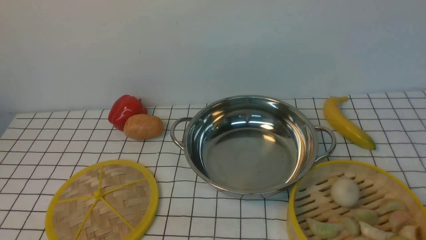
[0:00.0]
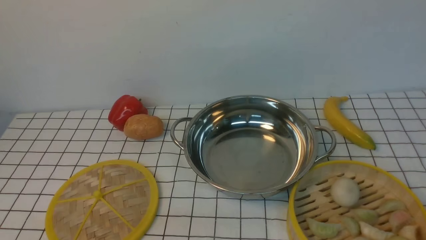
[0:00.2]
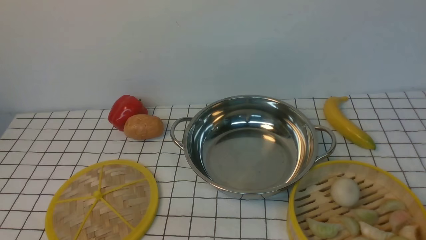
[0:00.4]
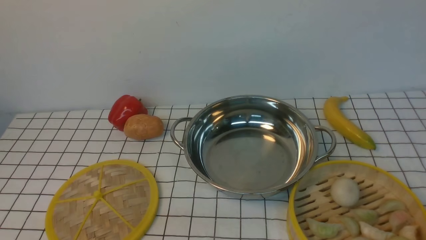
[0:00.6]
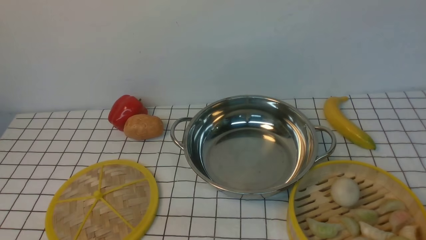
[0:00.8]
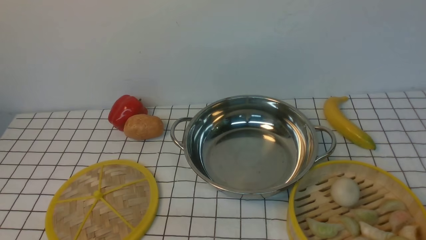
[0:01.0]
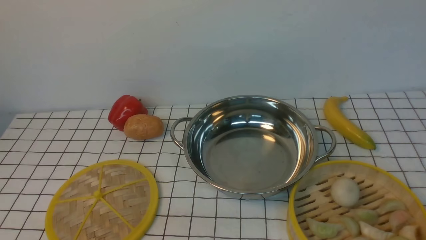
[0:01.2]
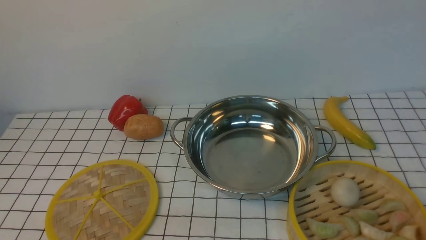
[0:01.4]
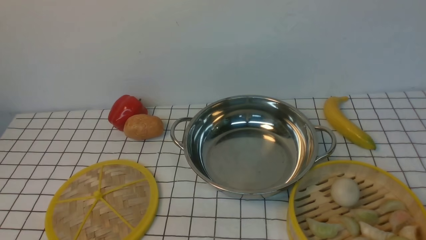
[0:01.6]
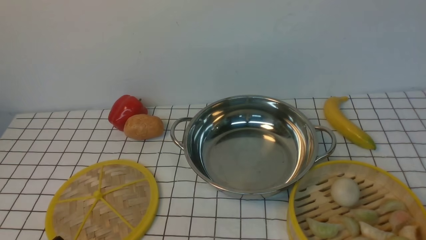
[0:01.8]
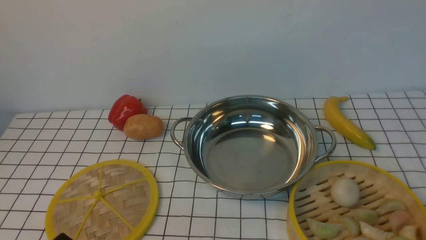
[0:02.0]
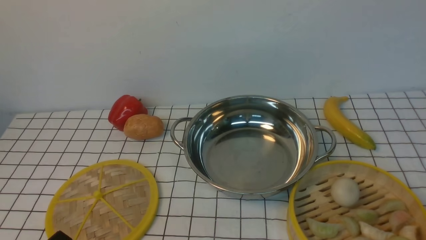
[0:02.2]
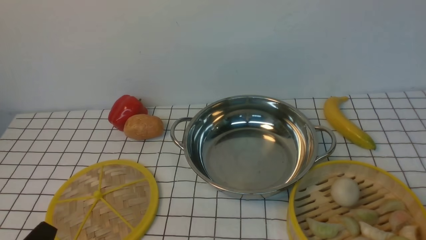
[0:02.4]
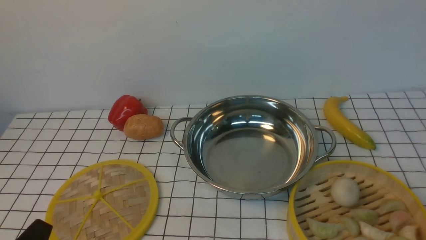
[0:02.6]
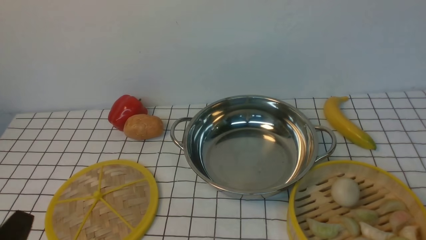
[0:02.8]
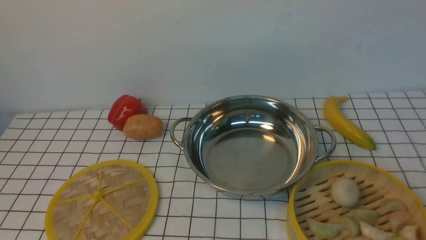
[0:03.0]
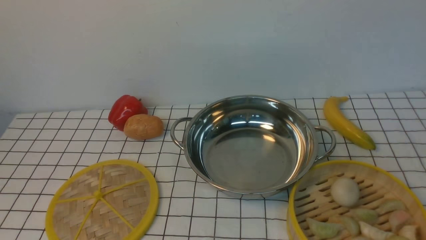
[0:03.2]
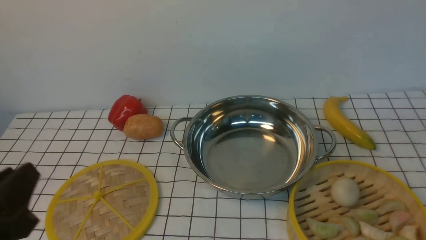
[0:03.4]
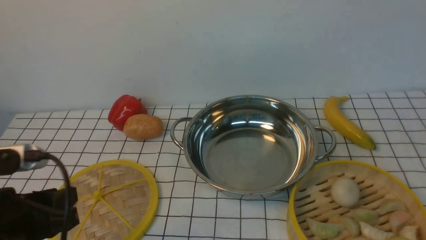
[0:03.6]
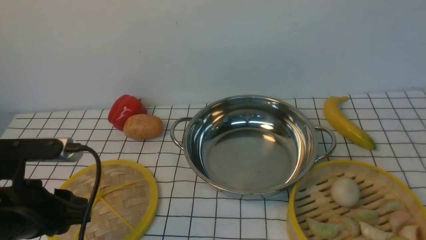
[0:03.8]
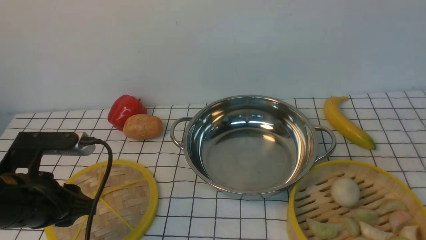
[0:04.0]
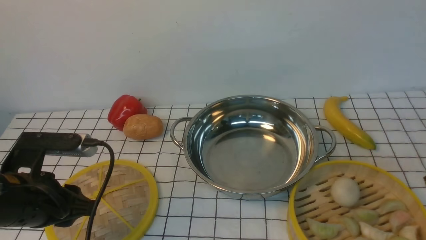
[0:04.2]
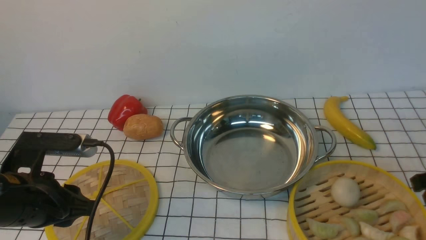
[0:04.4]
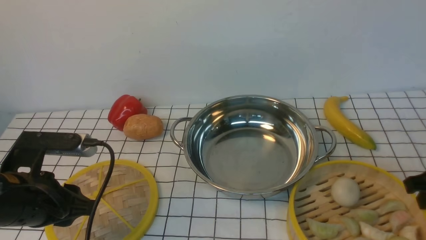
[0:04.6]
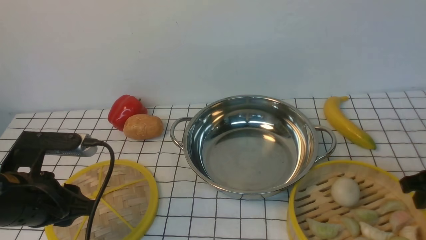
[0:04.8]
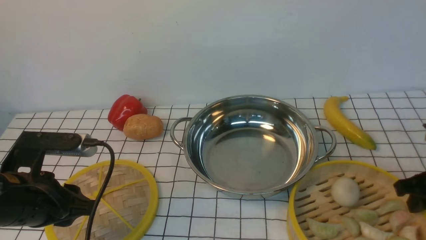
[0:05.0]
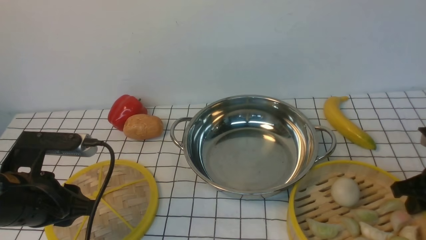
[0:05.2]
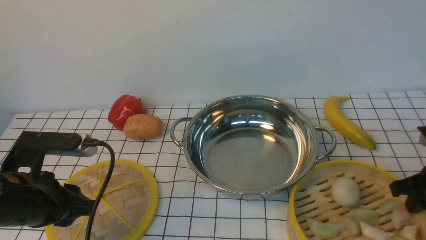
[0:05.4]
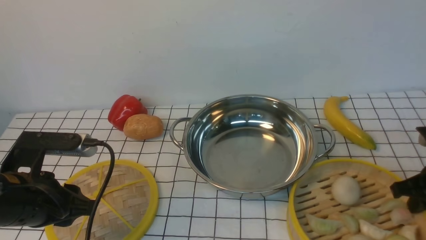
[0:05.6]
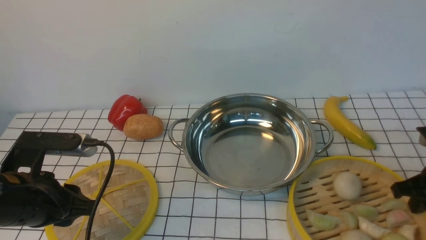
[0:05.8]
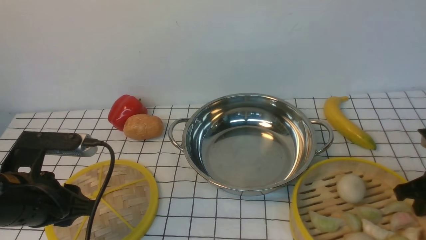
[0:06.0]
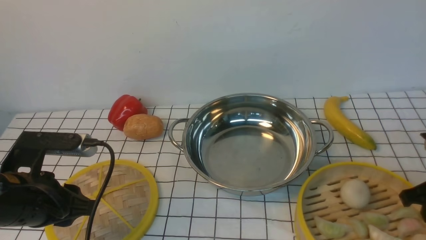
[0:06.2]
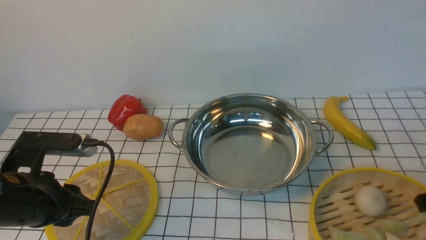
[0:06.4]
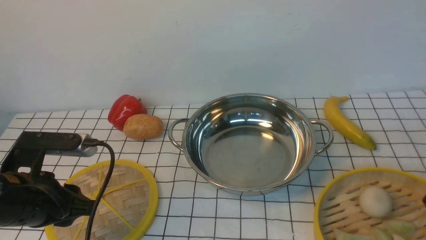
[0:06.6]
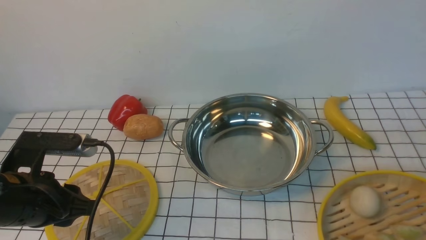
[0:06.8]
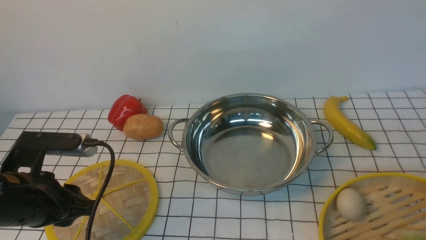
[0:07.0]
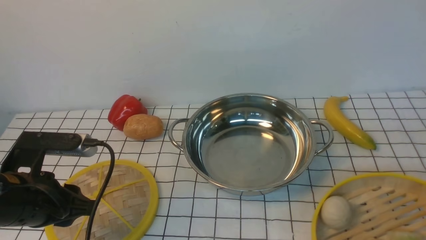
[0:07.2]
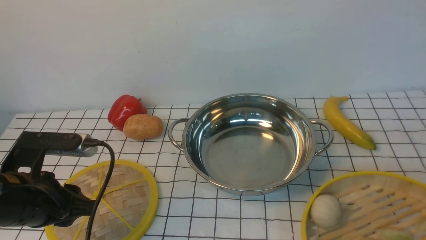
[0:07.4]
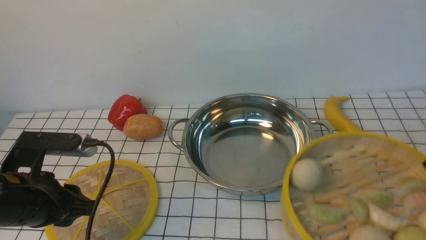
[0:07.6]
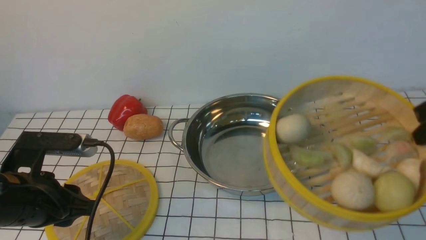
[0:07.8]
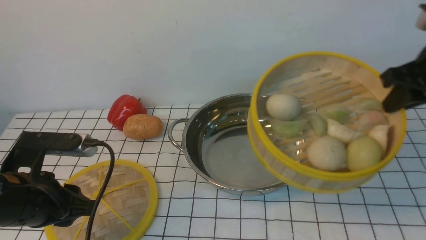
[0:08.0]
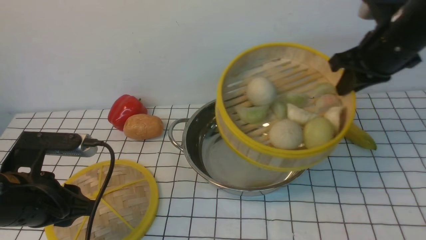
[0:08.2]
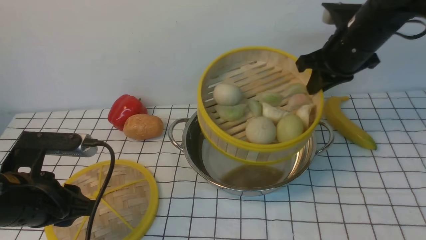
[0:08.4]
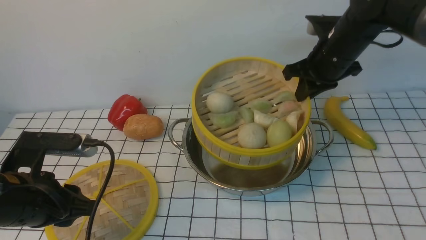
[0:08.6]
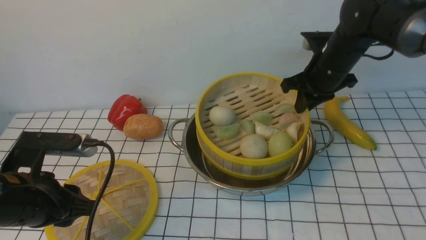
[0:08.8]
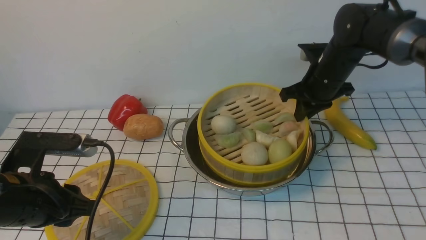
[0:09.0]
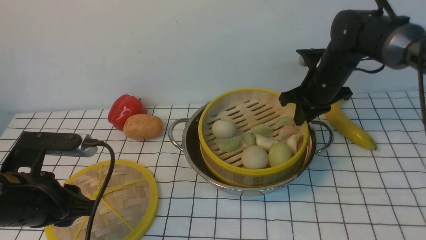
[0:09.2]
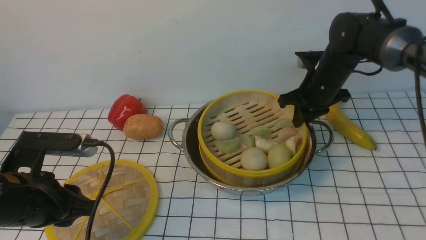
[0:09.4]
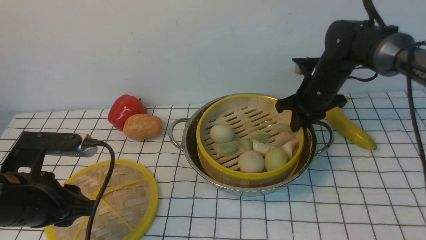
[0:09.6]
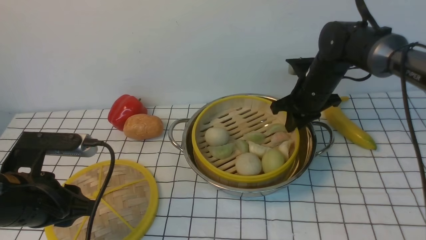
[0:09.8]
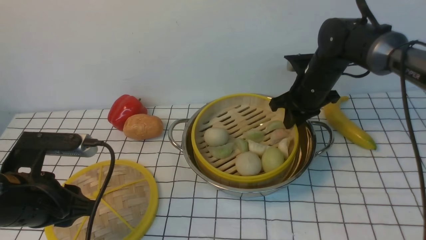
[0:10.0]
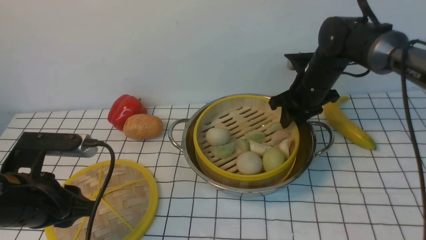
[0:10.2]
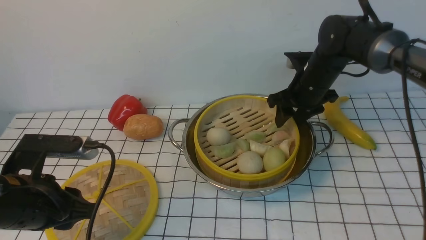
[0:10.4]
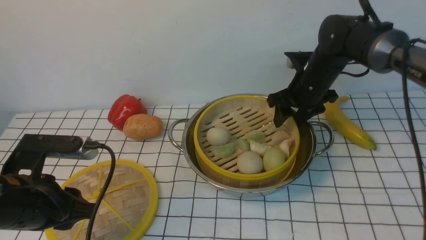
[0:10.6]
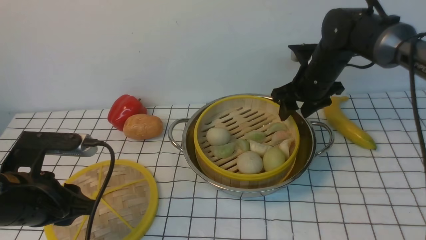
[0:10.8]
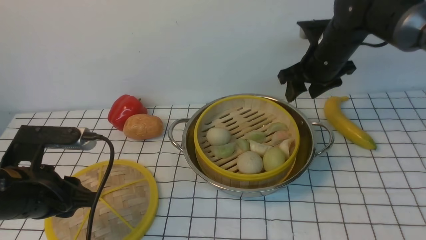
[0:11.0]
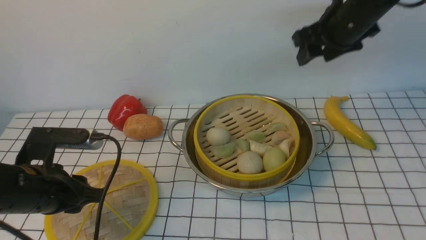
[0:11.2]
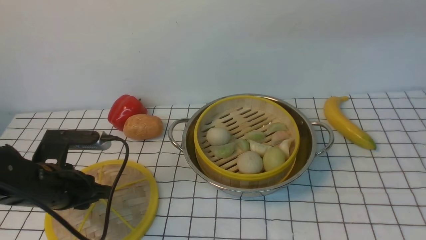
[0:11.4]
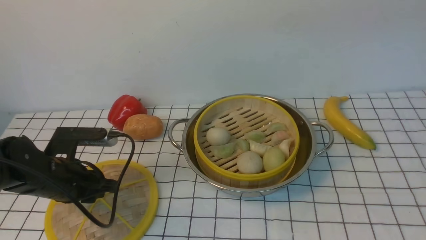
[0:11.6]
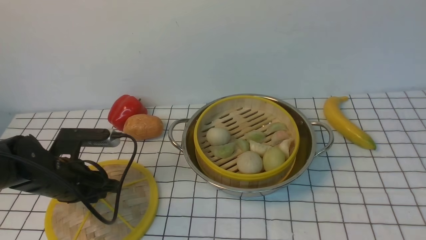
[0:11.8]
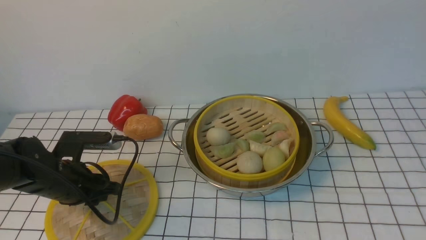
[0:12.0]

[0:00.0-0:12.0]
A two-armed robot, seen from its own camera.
Task of the whole recording: place the steamer in the pot on the white tablecloth, and put the lid on the steamer.
Step, 0:00.0 to 0:07.4: use the right arm to lift the steamer closest to it.
Step, 0:07.6 to 0:10.8: use the right arm to put the steamer into the iron steamer pot in the middle.
0:03.0 to 0:04.4: The left gripper is displaced forward by roughly 15 cm.
0:04.4 to 0:06.0: The right gripper shifts about 5 cm downward, and closes up.
0:06.0 to 0:07.6: The right gripper goes about 10 cm upward.
0:07.6 to 0:09.0: The right gripper shifts roughly 25 cm forward and to the left.
0:09.0 to 0:10.4: The right gripper opens.
0:10.4 to 0:12.0: The left gripper heads forward and downward, covering approximately 10 cm; the right gripper goes roughly 60 cm upward and backward.

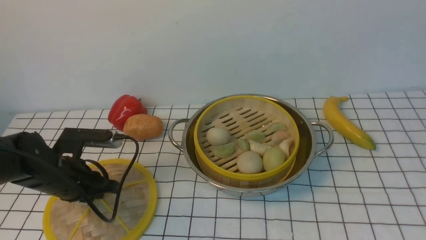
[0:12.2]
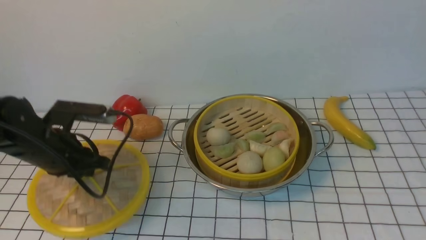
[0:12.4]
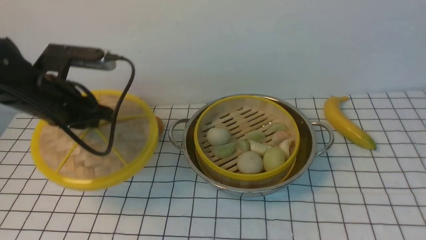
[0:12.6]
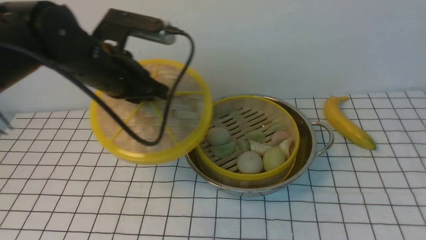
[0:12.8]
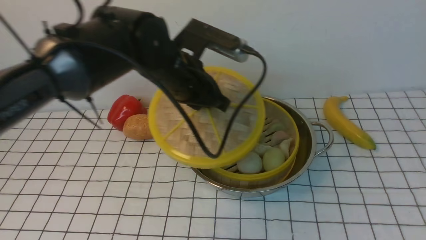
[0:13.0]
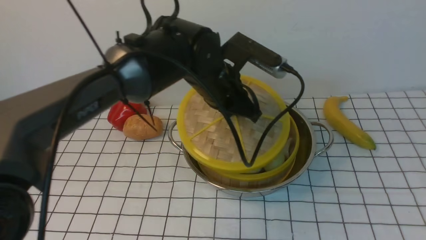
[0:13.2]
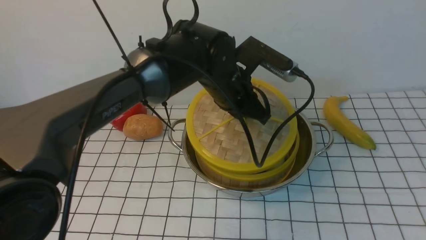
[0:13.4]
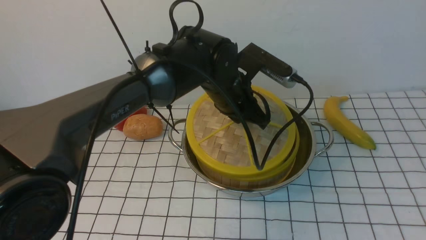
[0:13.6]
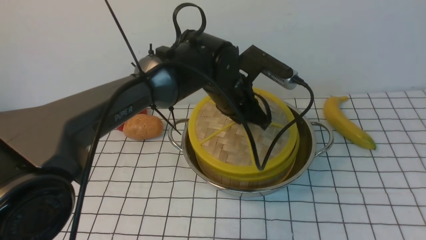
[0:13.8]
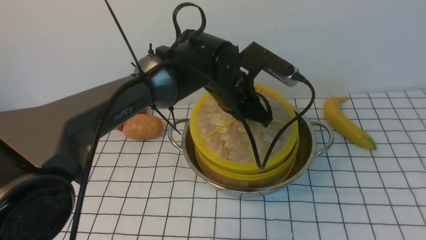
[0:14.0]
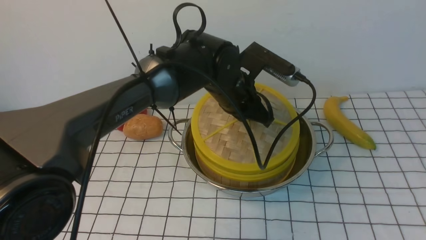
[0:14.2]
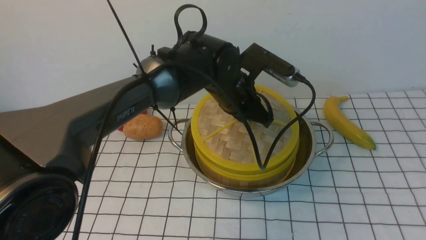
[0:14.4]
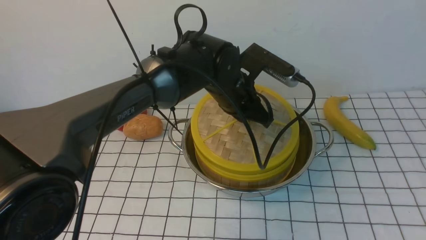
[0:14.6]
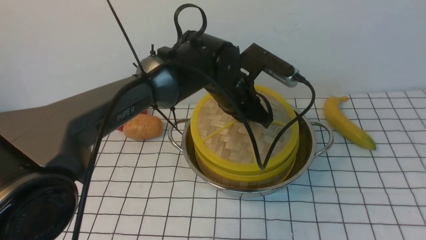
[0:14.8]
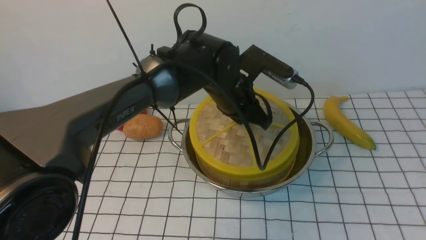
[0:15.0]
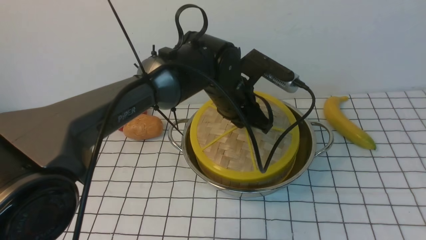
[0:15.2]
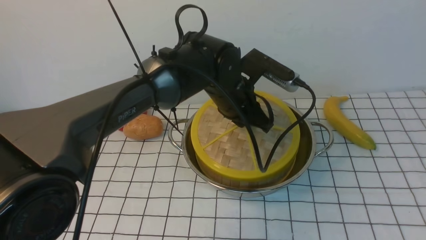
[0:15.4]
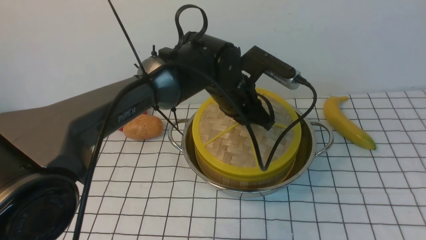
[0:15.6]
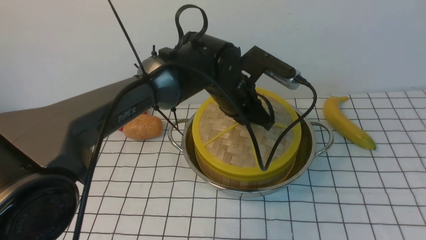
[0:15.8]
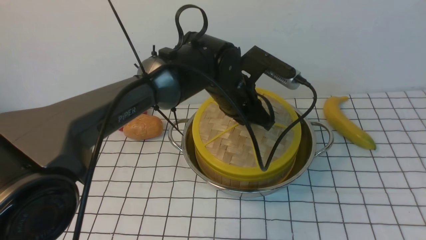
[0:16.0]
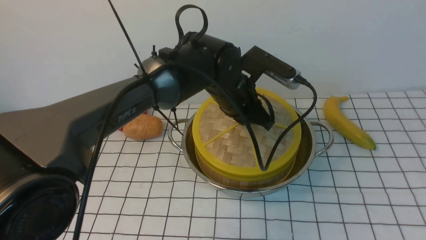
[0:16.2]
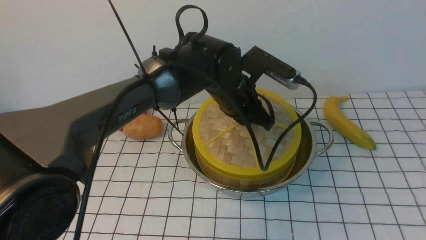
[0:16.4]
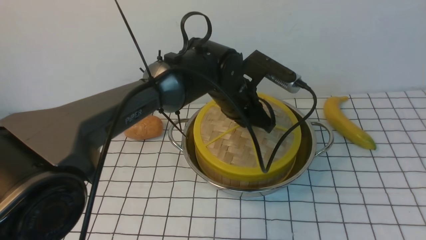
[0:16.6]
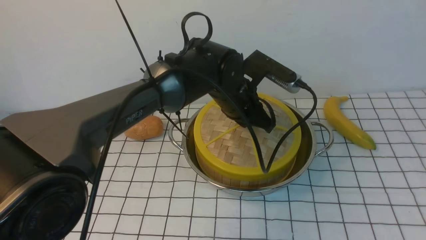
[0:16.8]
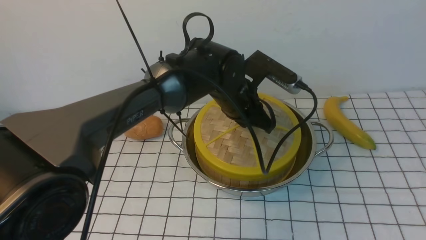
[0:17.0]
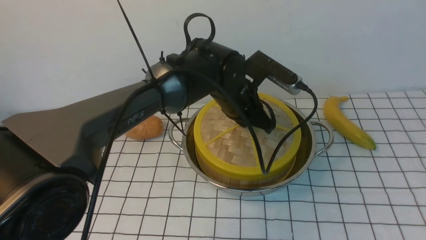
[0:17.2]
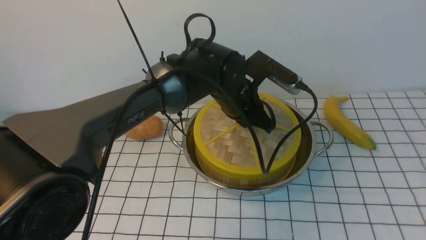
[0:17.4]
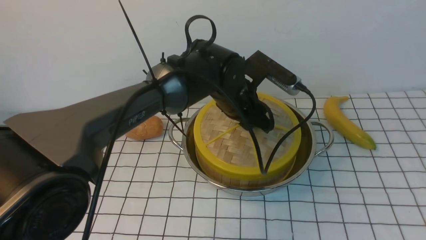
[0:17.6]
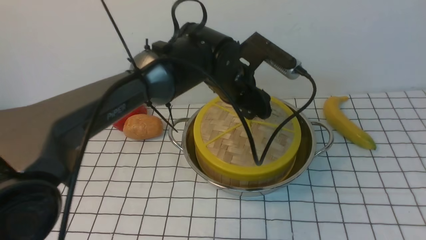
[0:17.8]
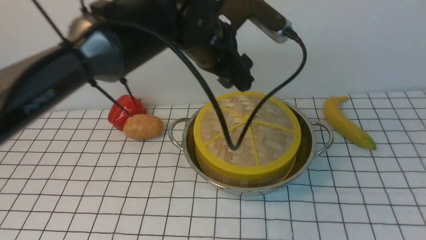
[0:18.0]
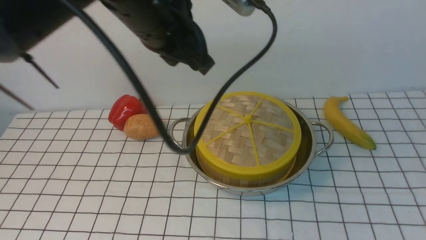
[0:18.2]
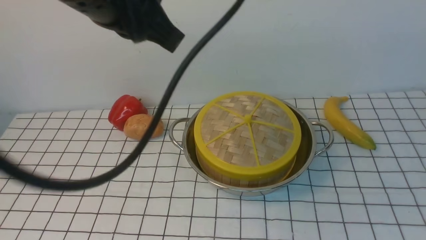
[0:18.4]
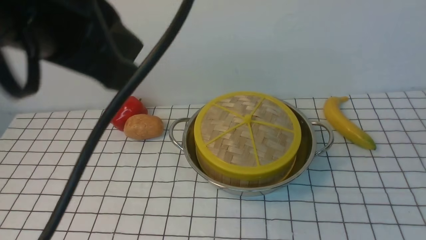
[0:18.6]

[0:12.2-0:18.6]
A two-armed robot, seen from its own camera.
Task of the whole recording: place the steamer in the pot on the white tablecloth, and put the lid on the steamer.
Step, 0:12.4 to 0:17.8: use the left arm to place the steamer lid on the steamer.
0:12.2 to 0:13.8: The left gripper travels to the right by approximately 25 cm, while the right gripper ends up approximately 5 cm from where it was.
0:13.8 to 0:15.4: Neither gripper changes place.
0:15.4 to 0:17.0: Both grippers stay about where they are.
0:17.0 to 0:18.6: The left gripper goes some 35 cm upward, backward and to the left, and closes its fingers. Meanwhile the right gripper shifts roughly 15 cm downward.
